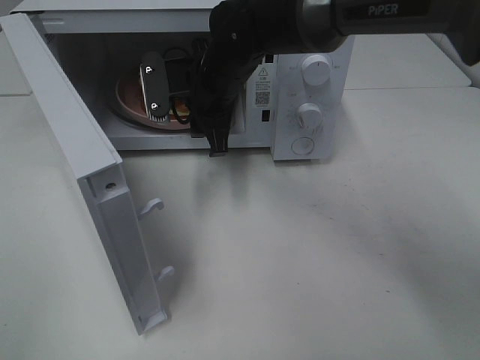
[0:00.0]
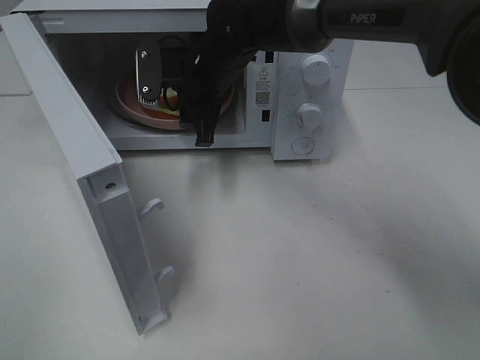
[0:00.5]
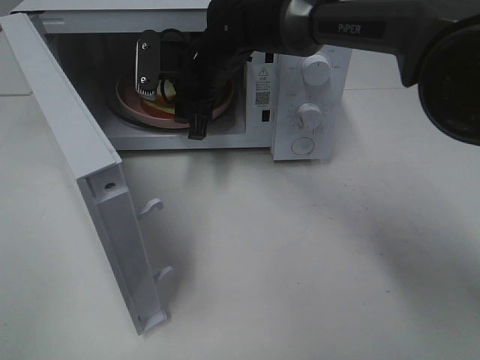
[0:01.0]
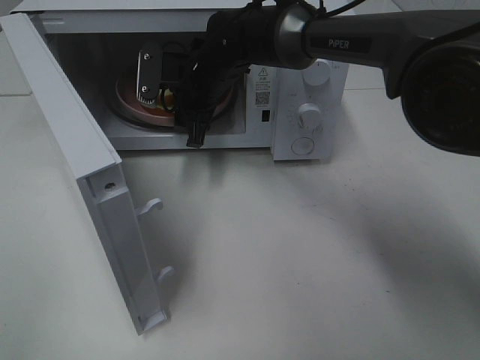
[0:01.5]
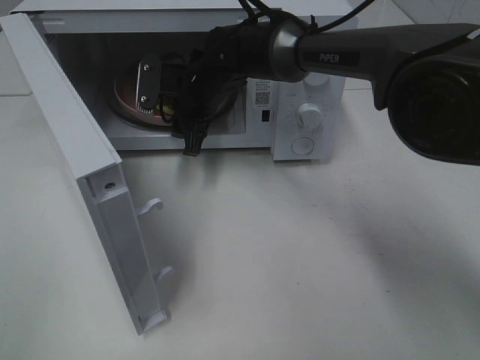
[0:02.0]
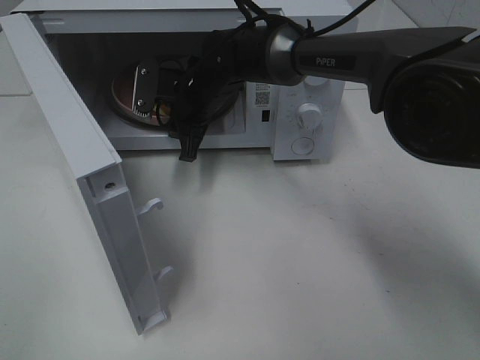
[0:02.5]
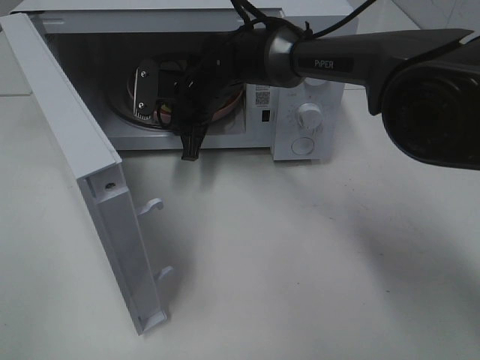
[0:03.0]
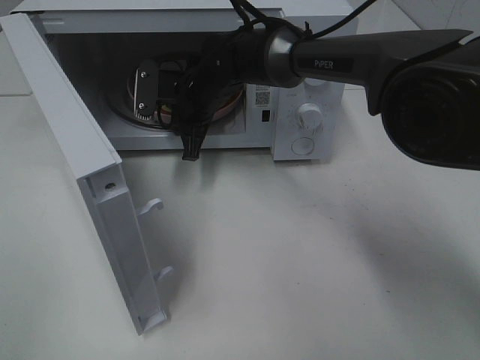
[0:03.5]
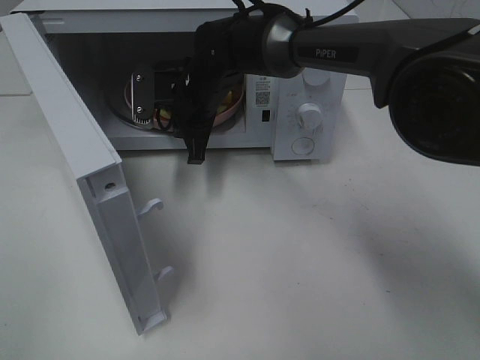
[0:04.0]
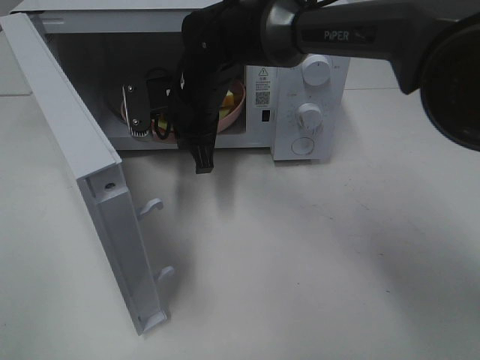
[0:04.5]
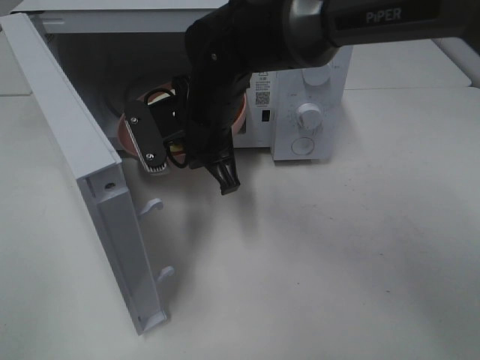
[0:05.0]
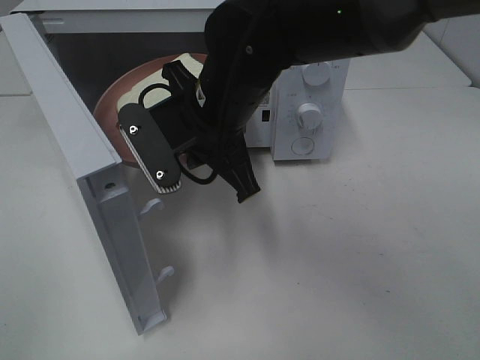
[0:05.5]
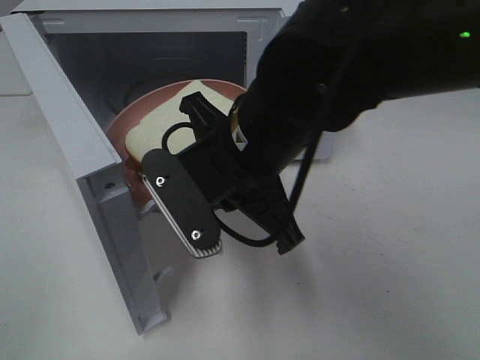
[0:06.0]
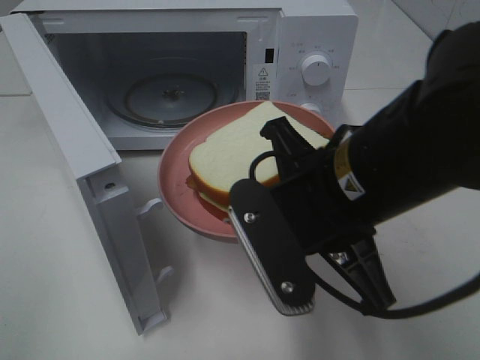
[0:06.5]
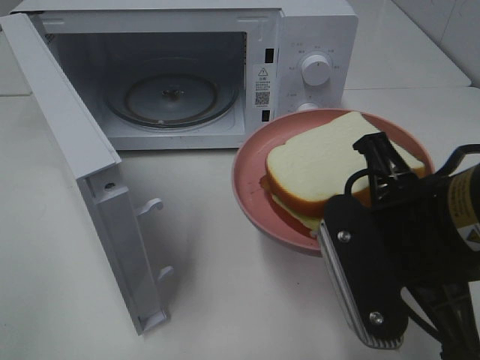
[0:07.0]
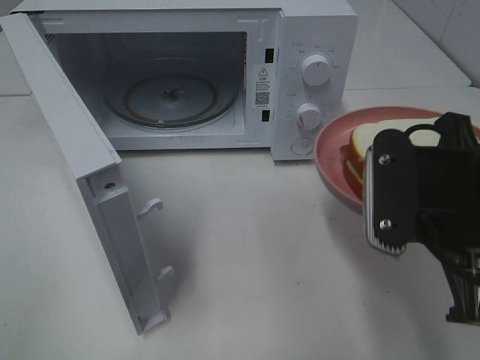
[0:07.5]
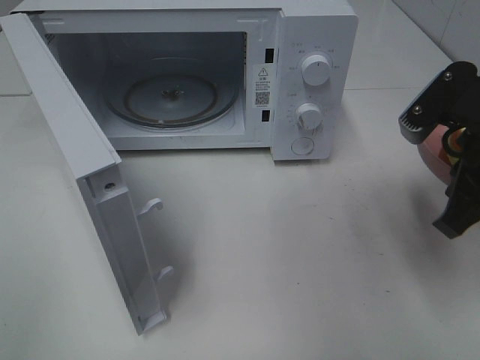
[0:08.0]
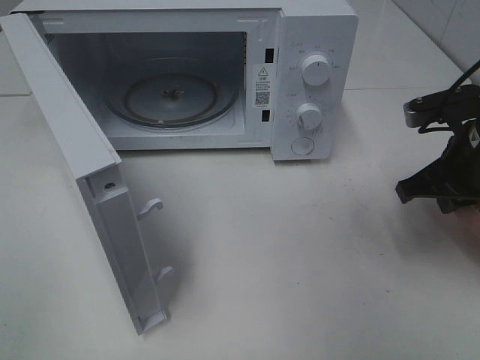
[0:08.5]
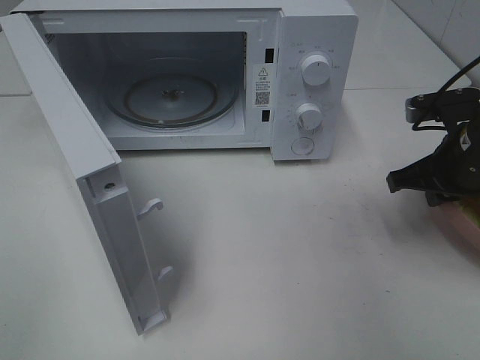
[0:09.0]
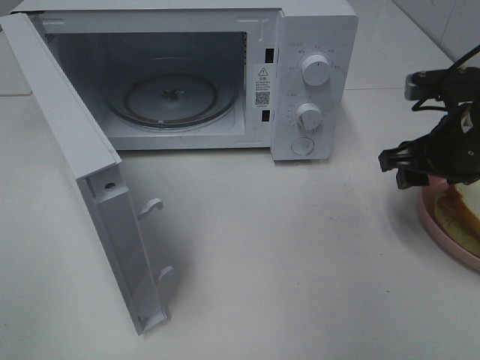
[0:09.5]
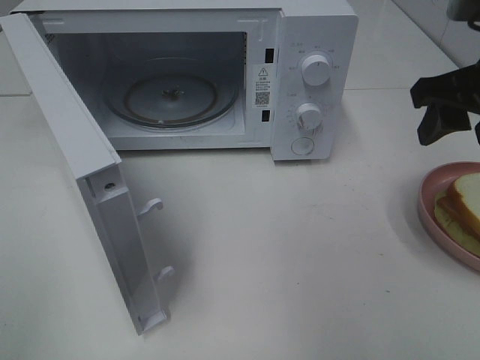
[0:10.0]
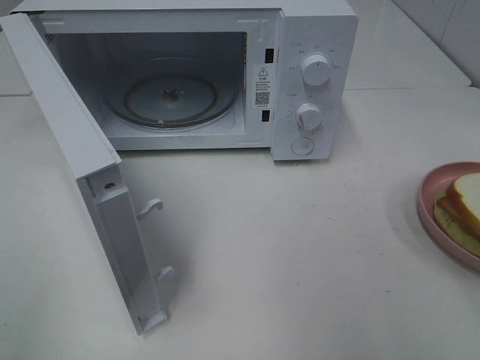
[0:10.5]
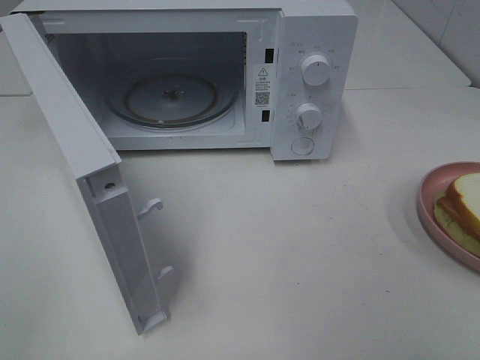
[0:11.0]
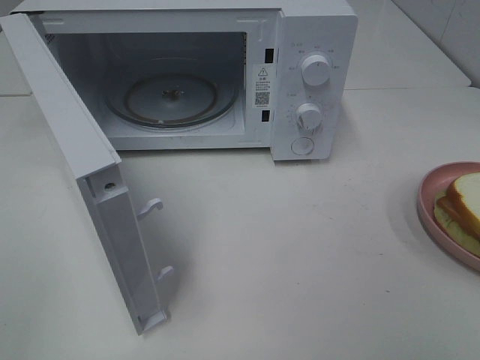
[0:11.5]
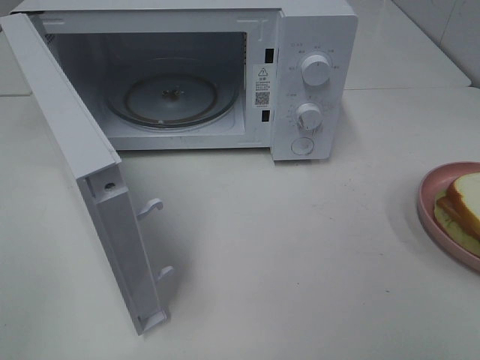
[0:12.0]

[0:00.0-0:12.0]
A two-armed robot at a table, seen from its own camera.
Task of the whole recording: Heat Sandwich.
Step, 0:00.0 to 0:03.0: Right hand: grab the plate with the sandwich.
Step, 0:03.5 to 0:10.0: Right hand: place the plate on the table.
0:00.0 to 0:02.0: The right gripper ends up about 5 cm from where it was.
0:02.0 to 0:04.0: The right gripper closes up.
0:04.0 to 0:06.0: The right gripper goes some 20 cm backward.
0:06.0 to 0:08.0: The right gripper moves to the right, roughly 20 cm.
0:08.0 to 0:10.0: The right gripper travels upward by some 5 cm, and opens its fingers.
0:10.0 to 0:12.0: The right gripper moves backward, some 25 cm.

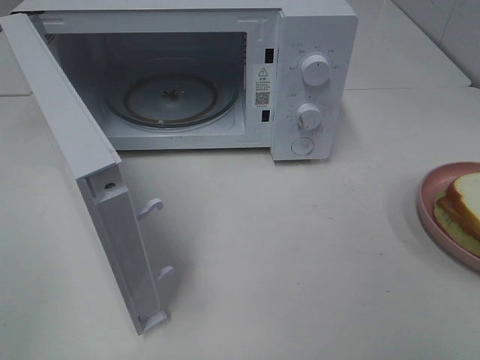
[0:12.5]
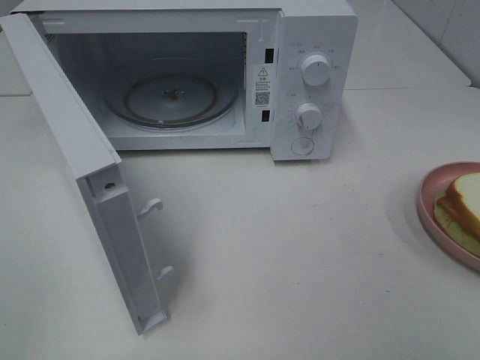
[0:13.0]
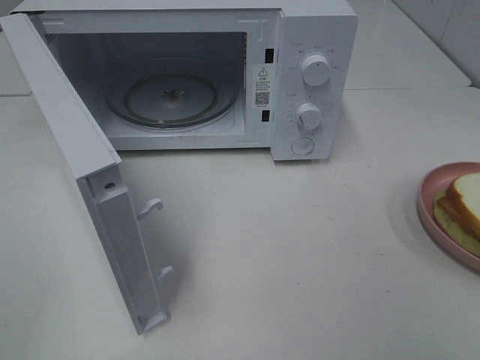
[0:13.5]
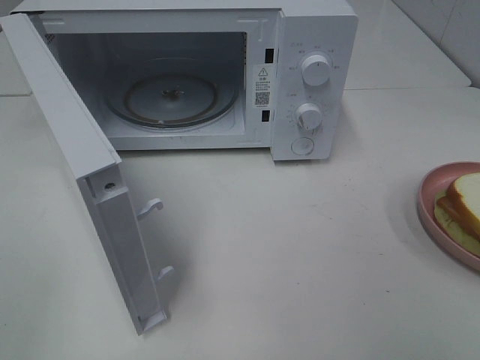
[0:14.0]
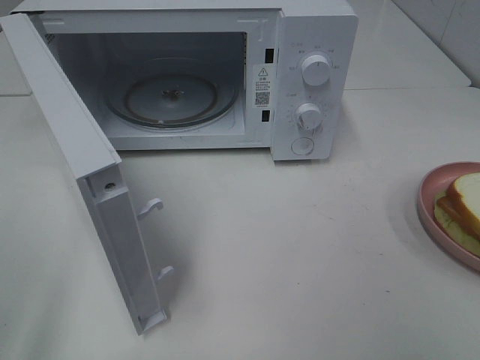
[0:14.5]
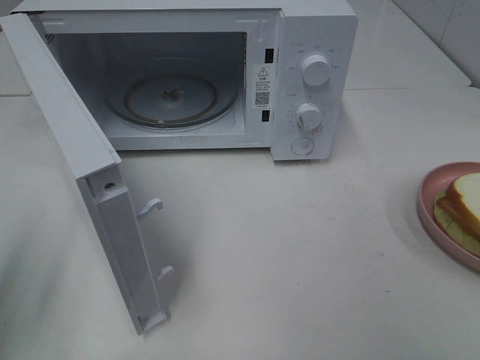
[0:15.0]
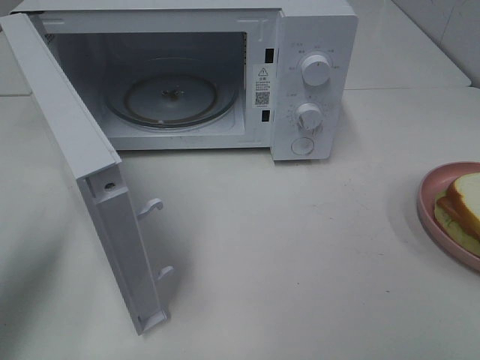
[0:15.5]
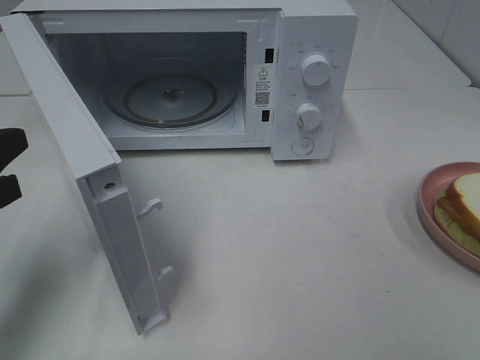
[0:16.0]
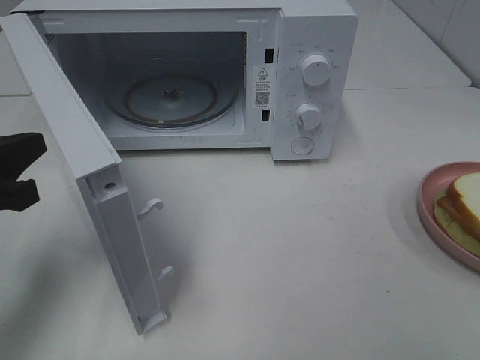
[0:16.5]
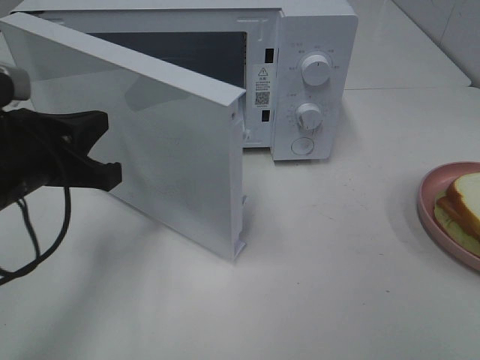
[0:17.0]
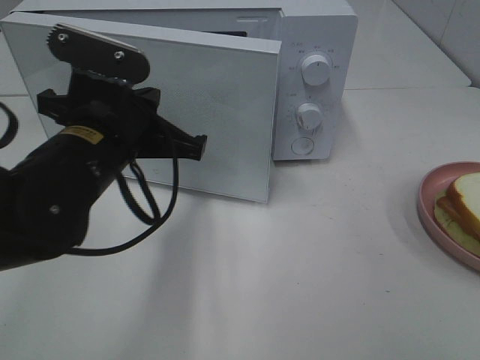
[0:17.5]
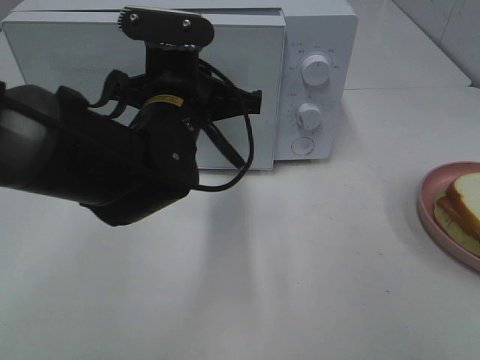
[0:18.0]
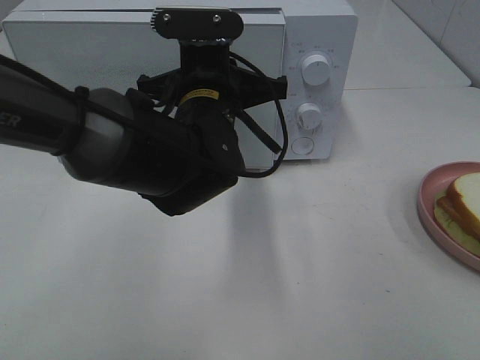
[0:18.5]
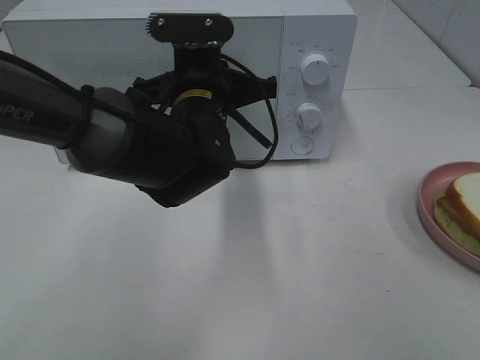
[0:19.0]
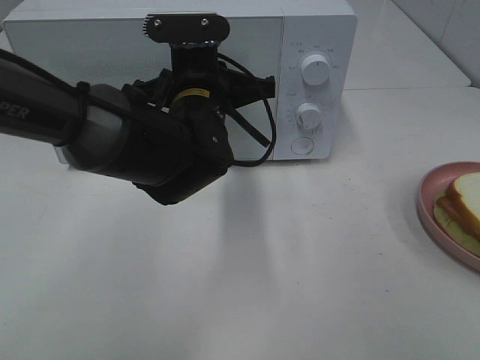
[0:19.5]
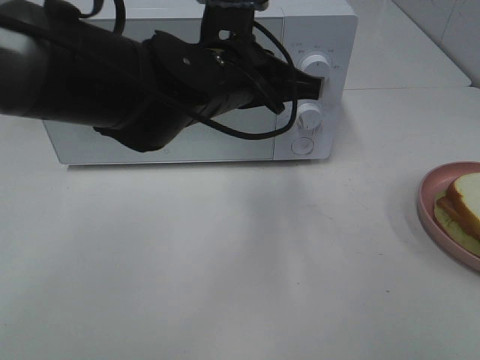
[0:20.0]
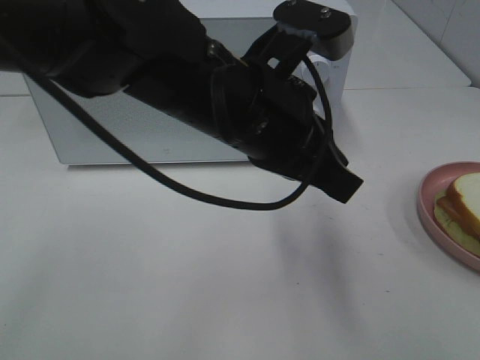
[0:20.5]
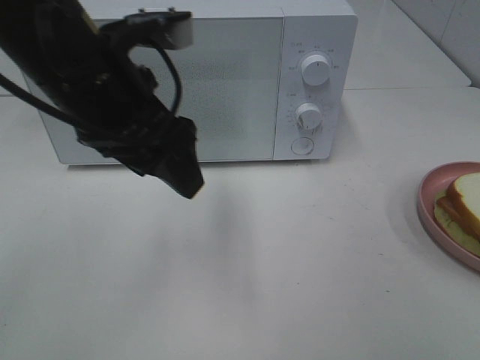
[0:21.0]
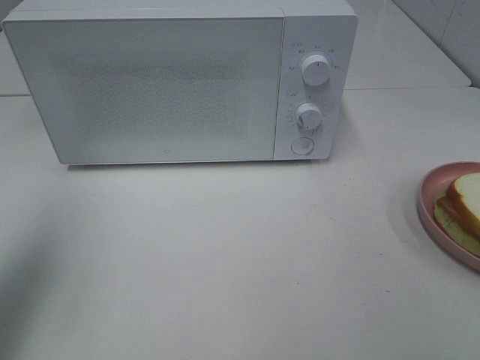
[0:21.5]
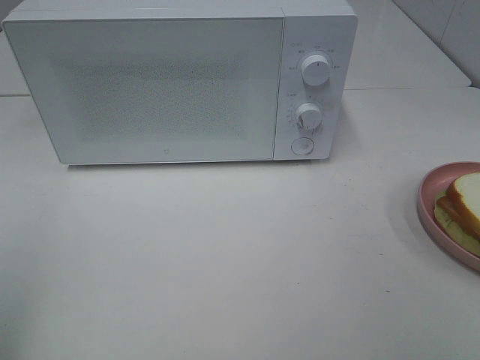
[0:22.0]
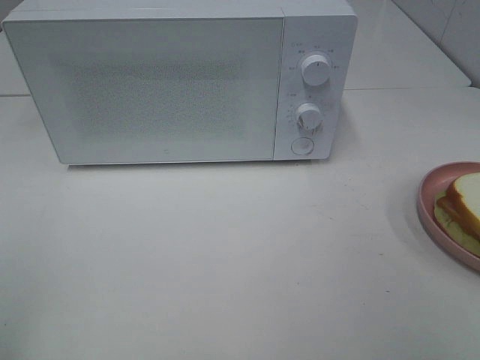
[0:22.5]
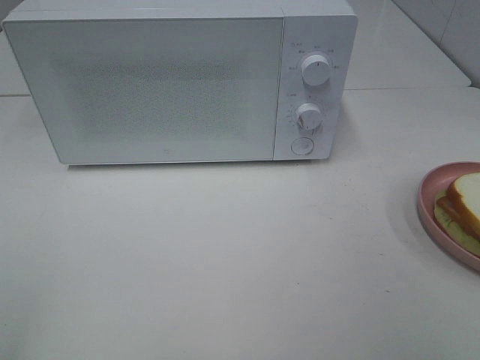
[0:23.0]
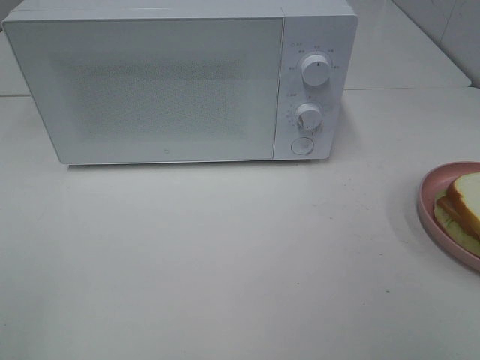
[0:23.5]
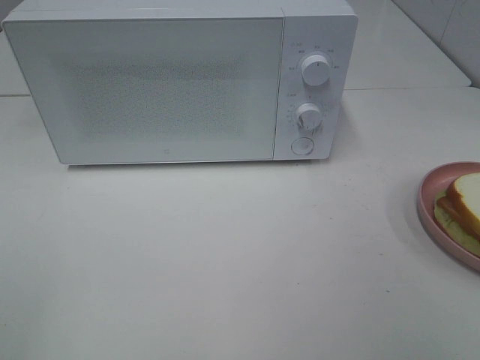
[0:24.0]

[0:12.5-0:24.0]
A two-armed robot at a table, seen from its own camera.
Task of the whole recording: Heat Sandwich.
Step, 0:12.5 to 0:20.0: Left hand: close the microwave door.
0:14.5 to 0:16.5: The left gripper shifts some 20 cm forward, downward and to the right, and closes its fingers.
0:16.5 to 0:18.5: The left gripper is displaced to the right and forward by approximately 25 cm.
0:20.0 to 0:22.0: The left gripper moves to the left and backward, some 40 cm, and opens its fingers.

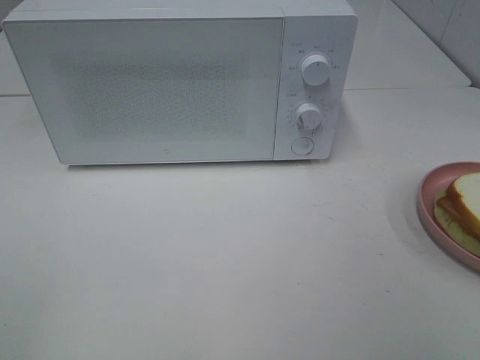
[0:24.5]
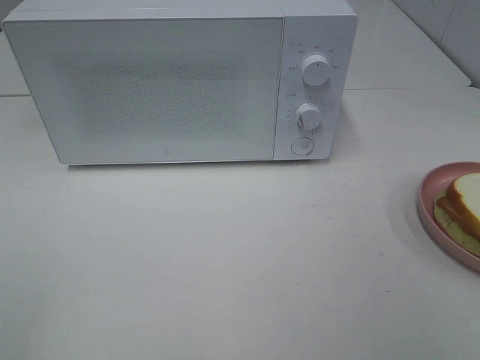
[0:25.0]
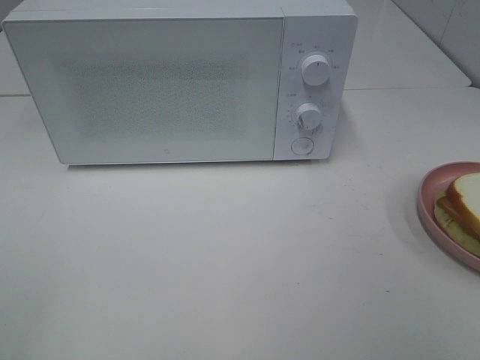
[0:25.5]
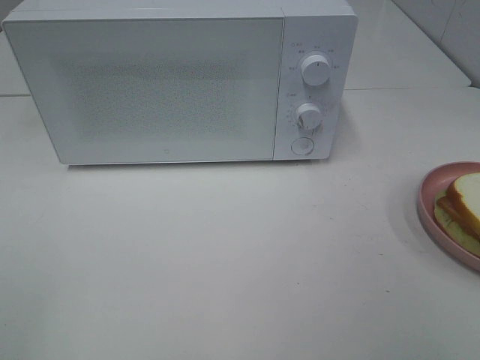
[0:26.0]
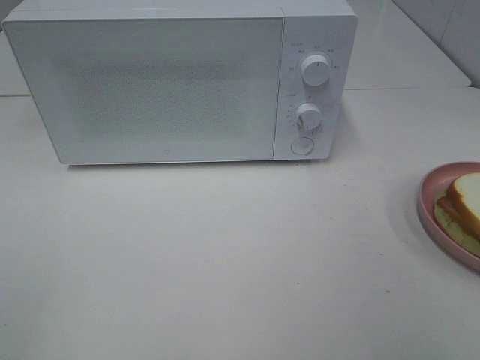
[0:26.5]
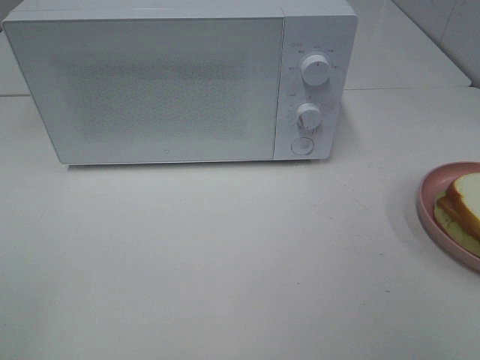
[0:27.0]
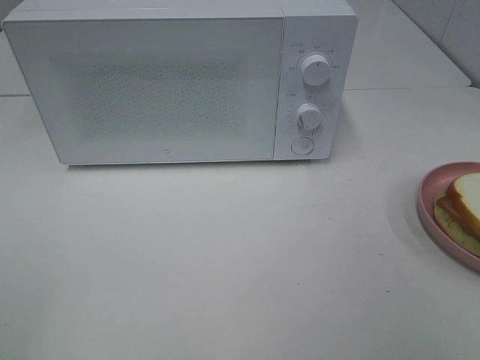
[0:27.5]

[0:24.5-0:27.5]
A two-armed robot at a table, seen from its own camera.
Task of the whole recording: Heat Sandwich.
0:24.5 to 0:27.5: Neither gripper changes place.
